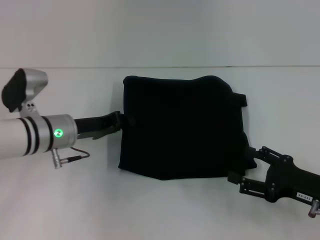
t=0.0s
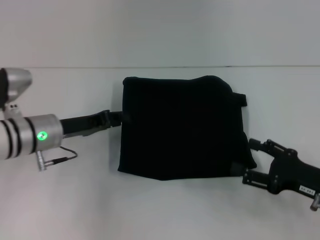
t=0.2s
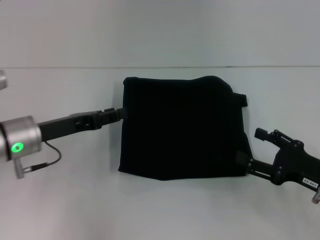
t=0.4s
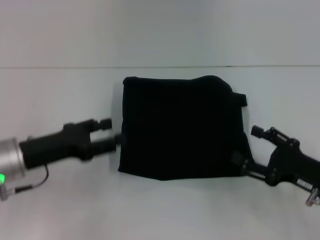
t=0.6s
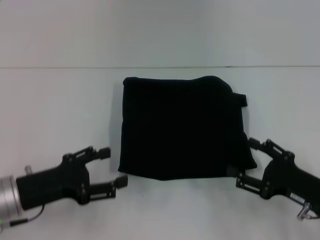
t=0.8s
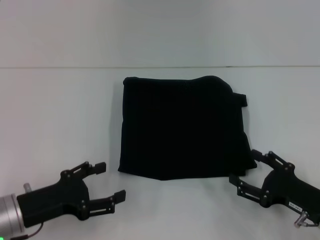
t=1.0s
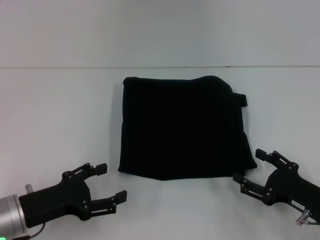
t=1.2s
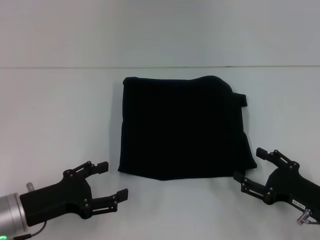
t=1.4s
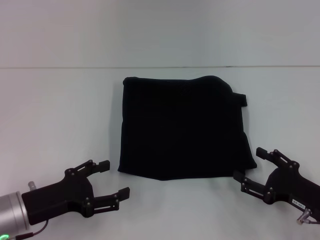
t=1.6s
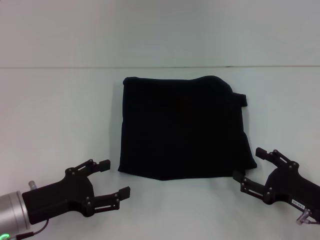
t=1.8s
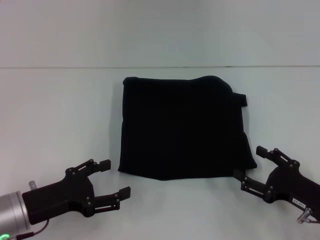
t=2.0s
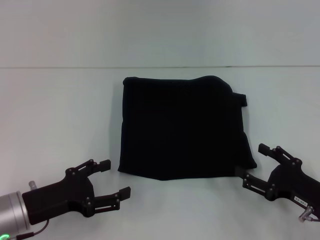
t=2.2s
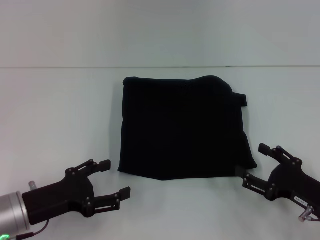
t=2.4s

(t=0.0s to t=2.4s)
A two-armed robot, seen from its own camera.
t=0.0s - t=1.2s: The left gripper moves backward, about 15 cm, and opens its fingers.
t=1.2s - t=2.4s: Both grippers stay put.

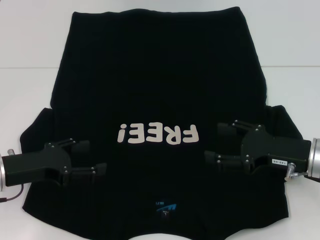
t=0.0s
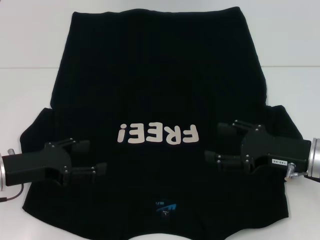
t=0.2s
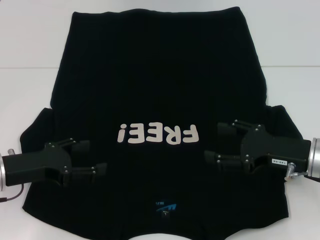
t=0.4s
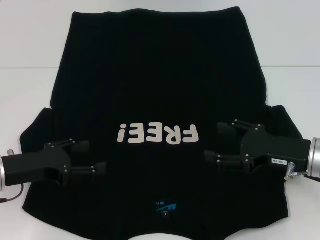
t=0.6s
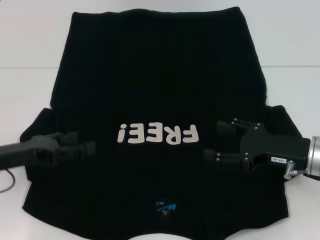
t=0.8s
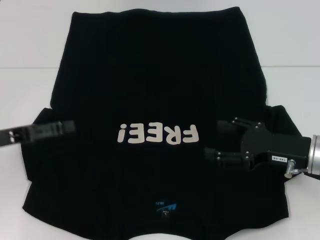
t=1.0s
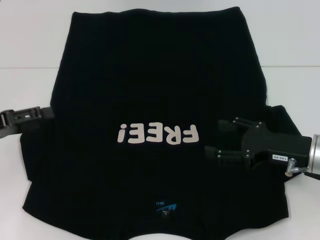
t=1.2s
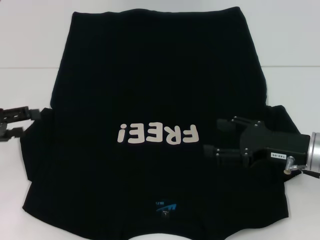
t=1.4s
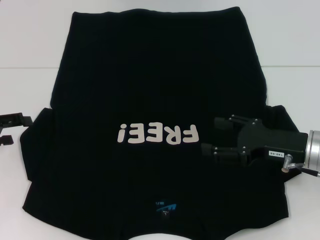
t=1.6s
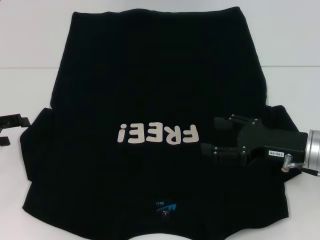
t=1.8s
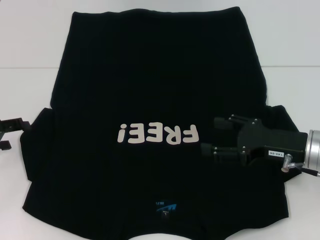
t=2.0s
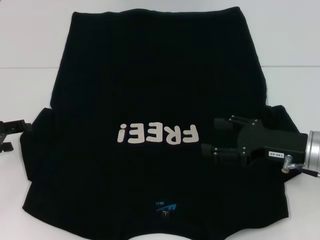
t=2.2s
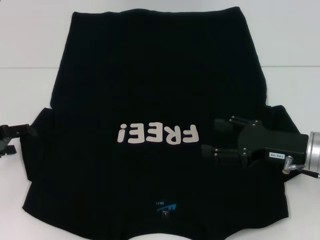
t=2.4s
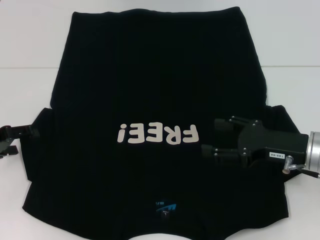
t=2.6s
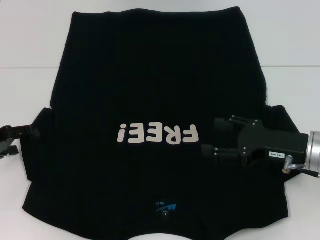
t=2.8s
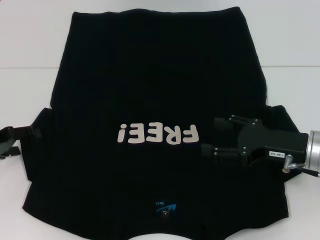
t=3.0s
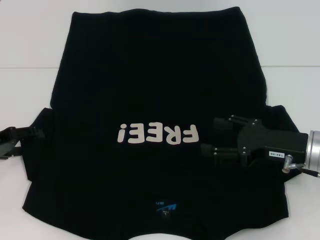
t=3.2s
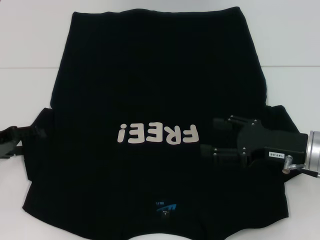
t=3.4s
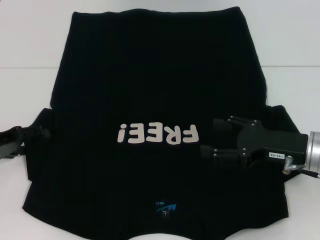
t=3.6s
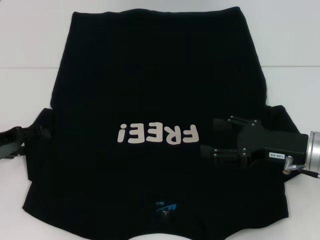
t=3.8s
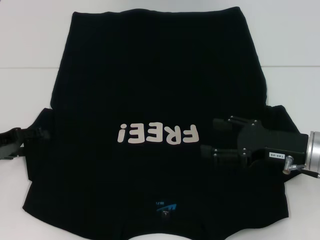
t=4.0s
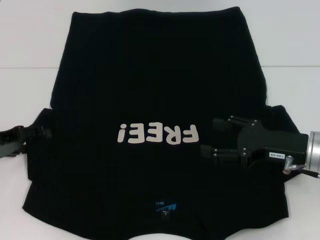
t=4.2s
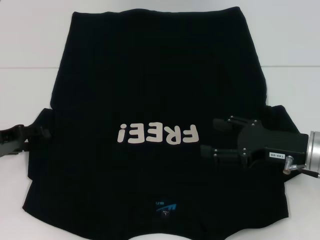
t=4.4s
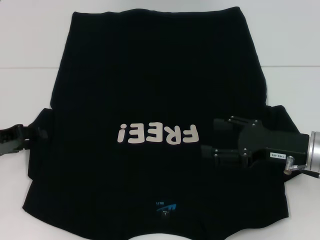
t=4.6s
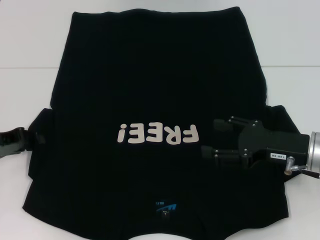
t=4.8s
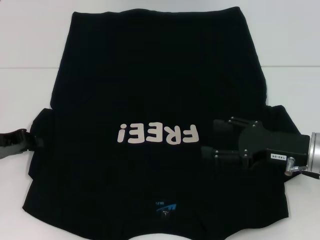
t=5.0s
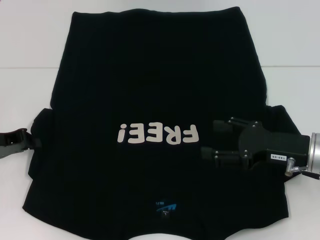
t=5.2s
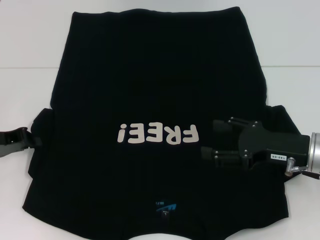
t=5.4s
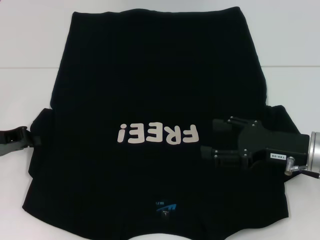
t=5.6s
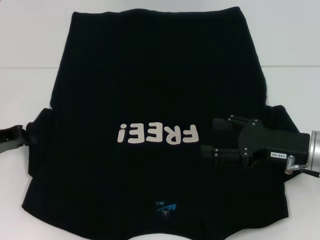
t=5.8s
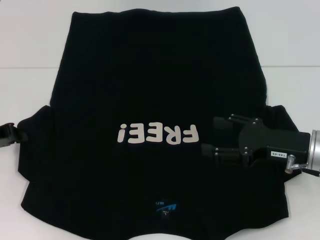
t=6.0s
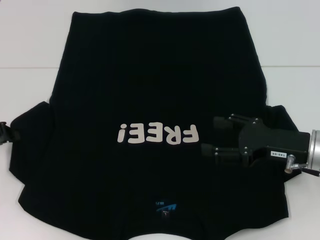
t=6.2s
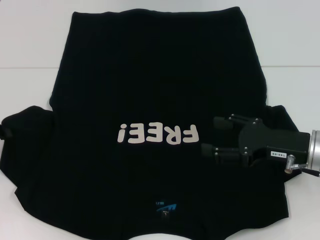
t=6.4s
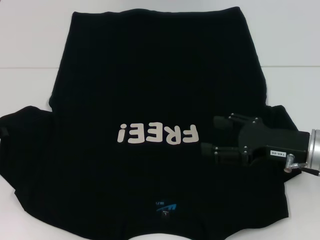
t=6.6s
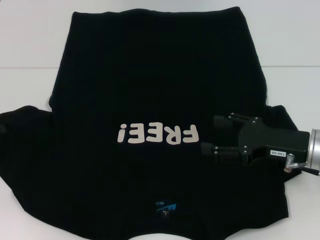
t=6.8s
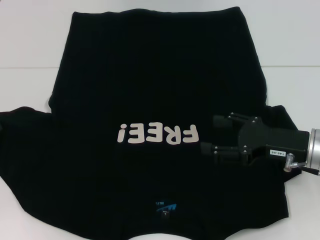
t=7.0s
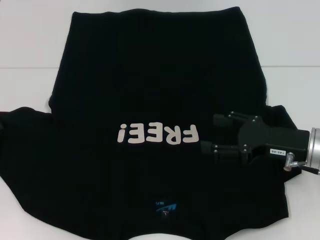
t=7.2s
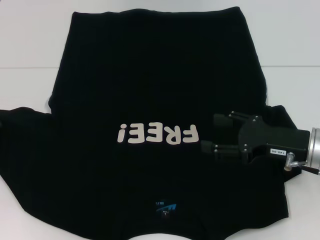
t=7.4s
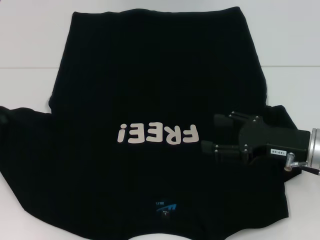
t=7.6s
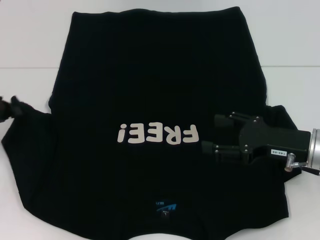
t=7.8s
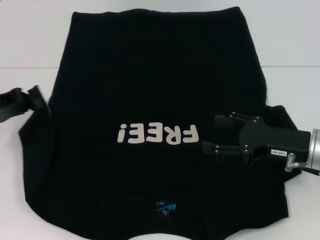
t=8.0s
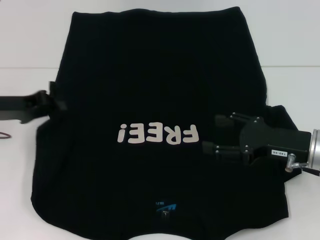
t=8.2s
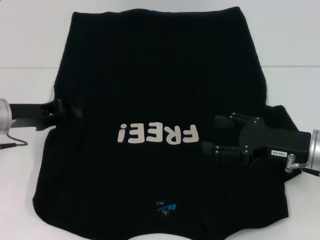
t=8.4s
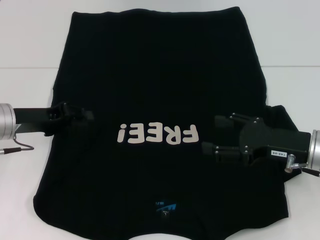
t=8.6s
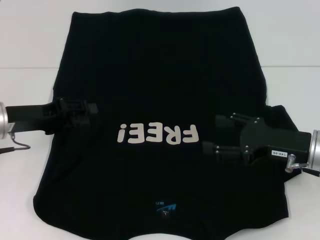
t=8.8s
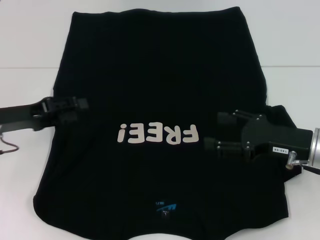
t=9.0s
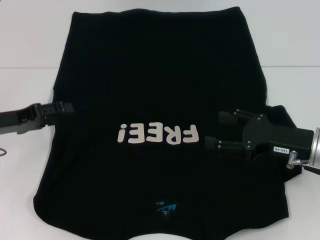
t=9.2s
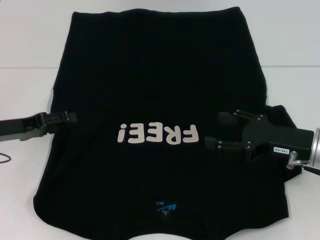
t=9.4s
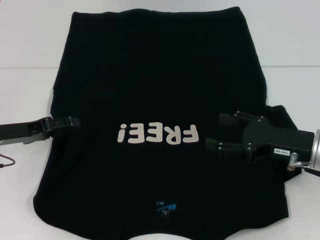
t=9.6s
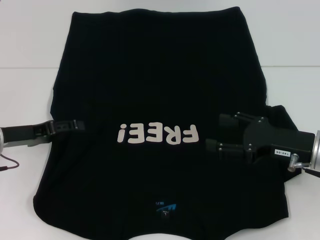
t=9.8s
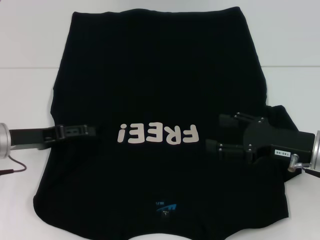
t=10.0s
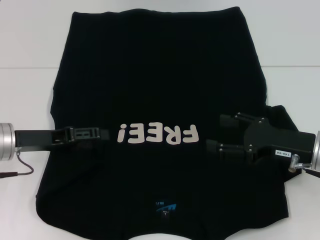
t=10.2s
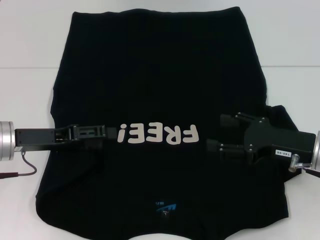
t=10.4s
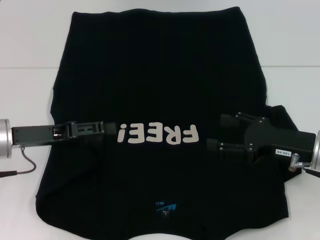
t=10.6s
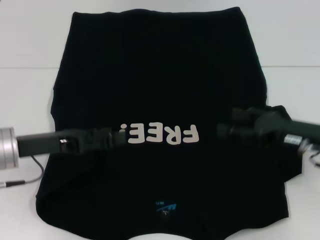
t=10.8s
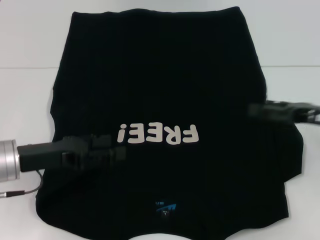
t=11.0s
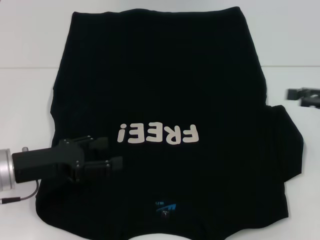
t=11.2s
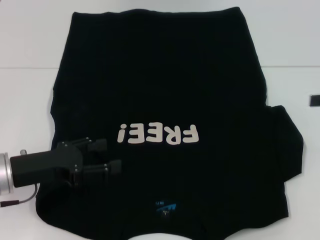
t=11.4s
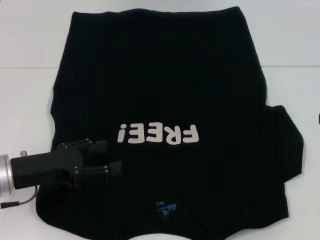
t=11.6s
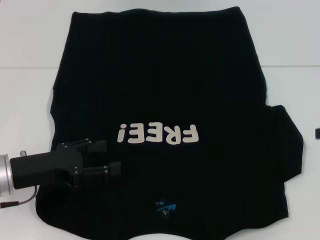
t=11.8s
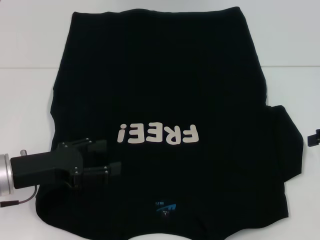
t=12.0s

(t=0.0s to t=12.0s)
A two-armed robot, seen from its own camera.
Step, t=0.0s - t=9.2s: Fold the bottom left sleeve with your left hand.
t=0.0s - t=1.6s: The left gripper heads to the left, covering approximately 10 cm.
t=1.6s - t=4.4s: The grippers make only small movements.
t=4.4s - t=6.0s: The left gripper closes up.
t=6.0s - t=7.6s: The grippers stay close to where they were, moving slightly.
t=7.6s - t=9.0s: The left gripper goes approximately 10 cm to the right, and opens up.
t=9.0s - t=10.4s: The left gripper opens.
t=10.4s - t=12.0s: The right gripper shifts some 15 cm to the right and upward; the left gripper ends up approximately 5 cm from where it was.

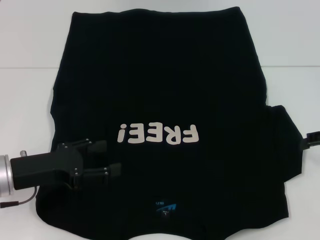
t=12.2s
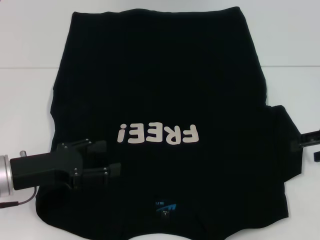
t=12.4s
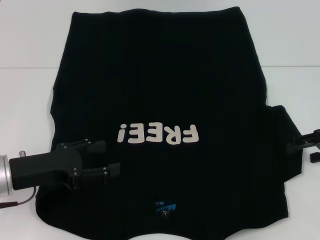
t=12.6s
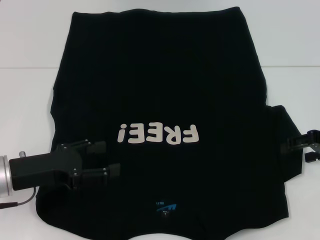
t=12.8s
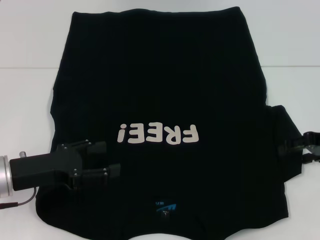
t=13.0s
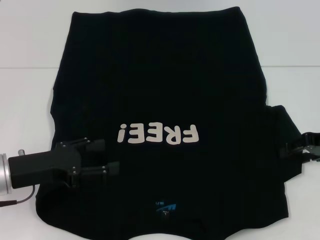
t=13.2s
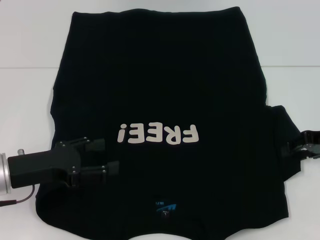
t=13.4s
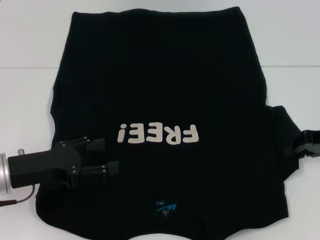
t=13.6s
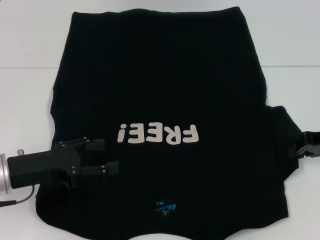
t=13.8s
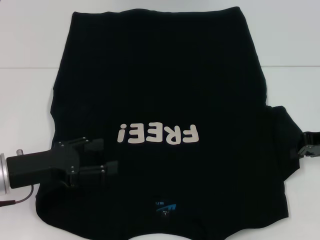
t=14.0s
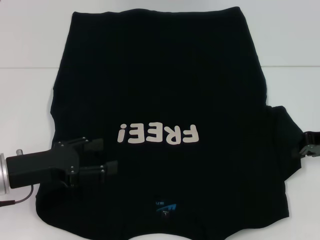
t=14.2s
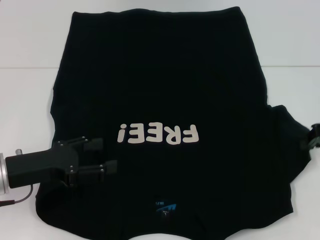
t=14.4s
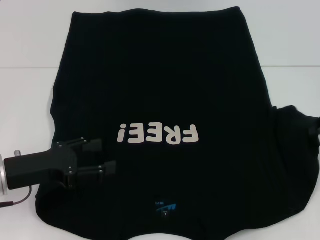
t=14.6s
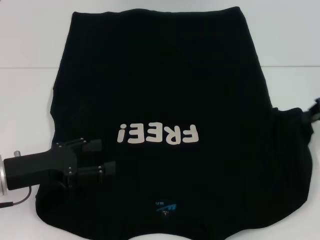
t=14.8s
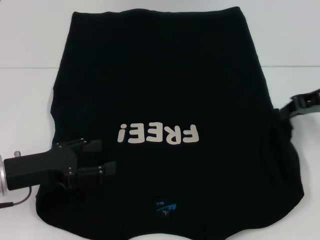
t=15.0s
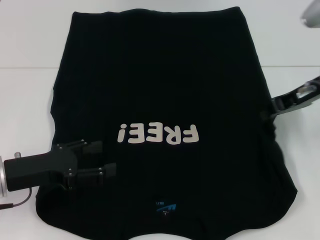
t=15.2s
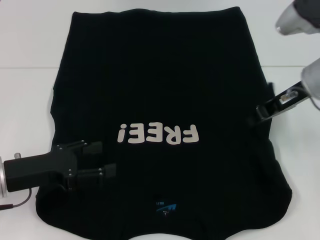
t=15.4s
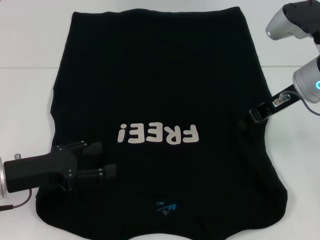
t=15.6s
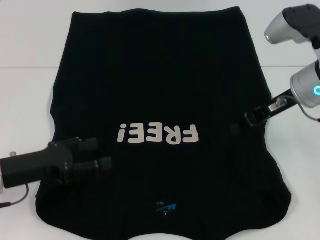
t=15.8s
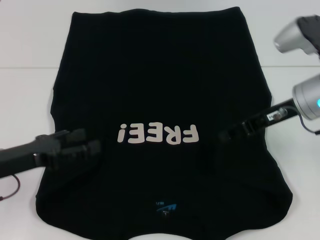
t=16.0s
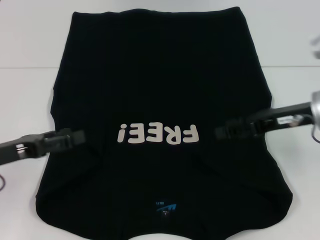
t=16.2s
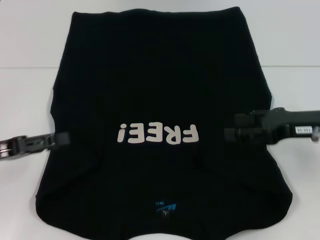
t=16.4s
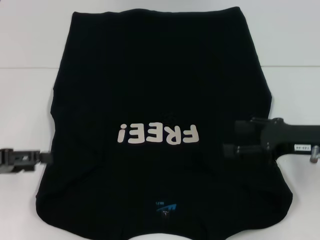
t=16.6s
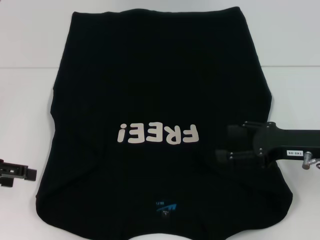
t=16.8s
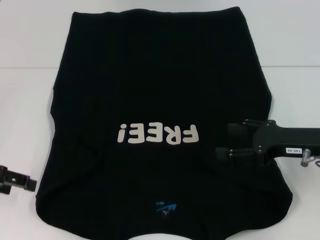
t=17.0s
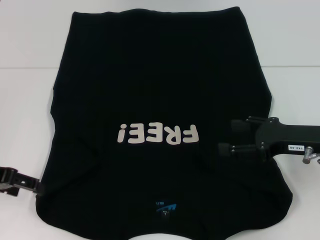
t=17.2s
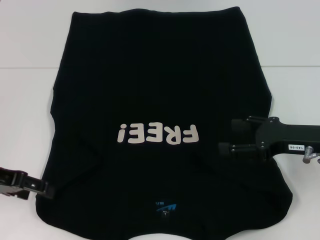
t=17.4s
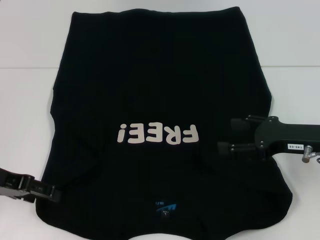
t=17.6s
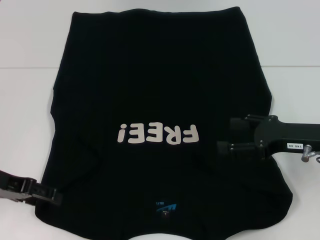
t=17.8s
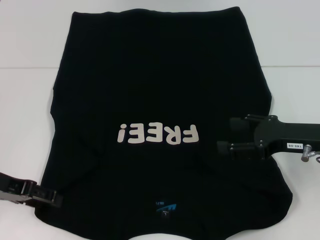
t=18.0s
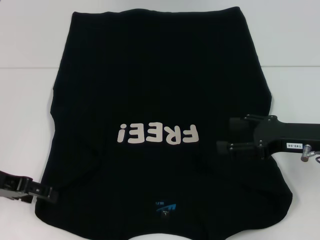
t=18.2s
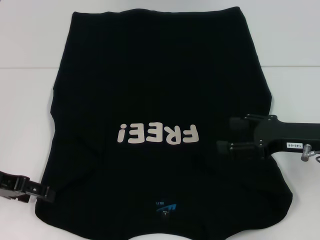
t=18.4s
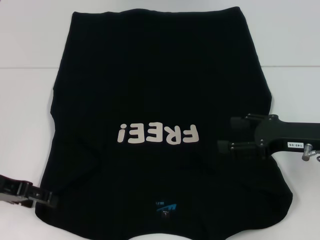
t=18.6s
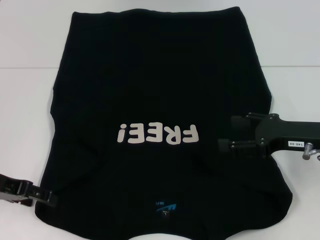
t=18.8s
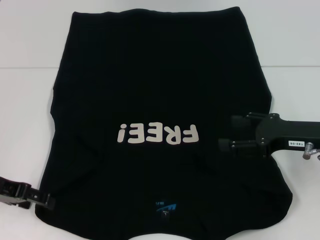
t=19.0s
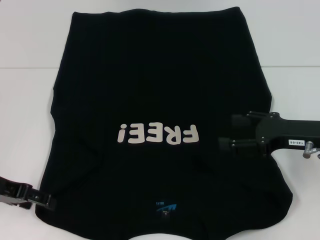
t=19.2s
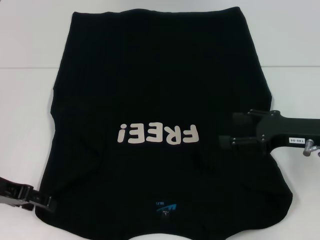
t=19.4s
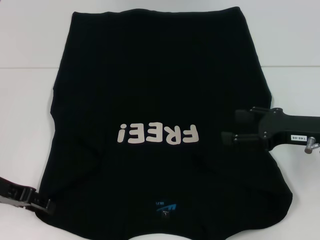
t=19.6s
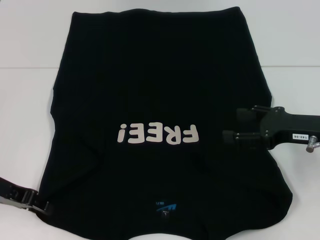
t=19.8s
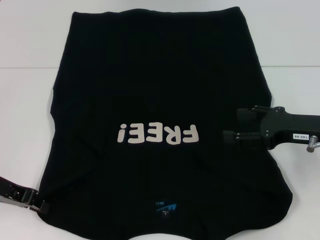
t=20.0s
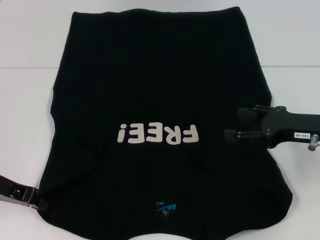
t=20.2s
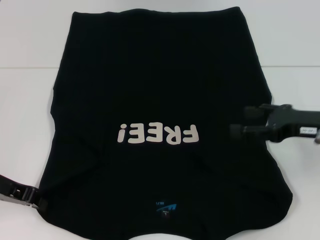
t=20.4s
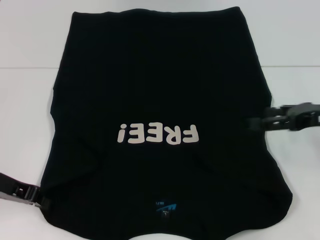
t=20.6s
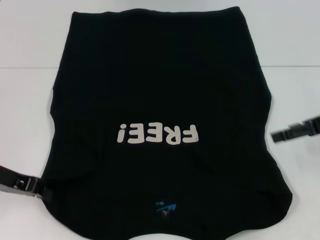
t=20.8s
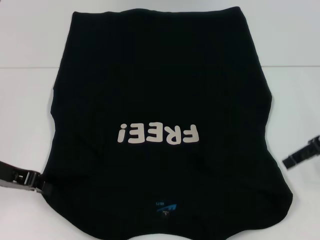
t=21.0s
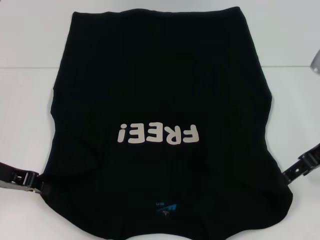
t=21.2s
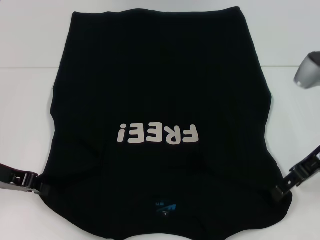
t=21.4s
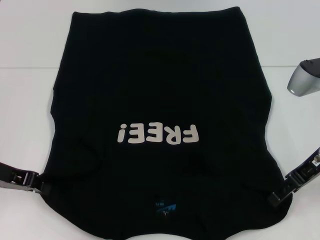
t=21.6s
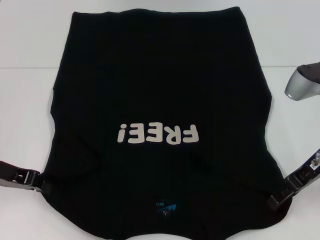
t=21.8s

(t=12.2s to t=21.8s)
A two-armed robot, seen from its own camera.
Step, t=12.2s - t=16.2s: Fold the bottom right sleeve with your right hand.
t=12.2s - t=13.8s: The right gripper closes its fingers.
t=13.8s - t=15.4s: The right gripper travels to the left and upward by approximately 10 cm.
t=15.4s - t=17.0s: The left gripper goes about 10 cm to the left and upward, while the right gripper travels backward and downward by approximately 10 cm, and opens.
t=17.0s - t=18.6s: The grippers stay close to where they were, moving slightly.
t=18.6s - t=20.2s: The left gripper closes its fingers.
